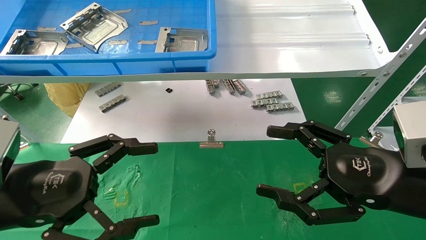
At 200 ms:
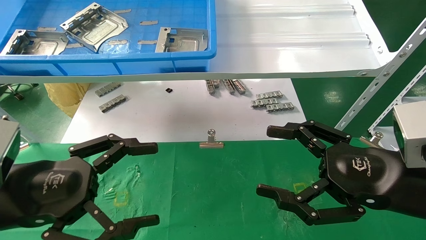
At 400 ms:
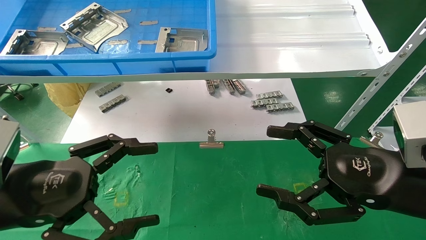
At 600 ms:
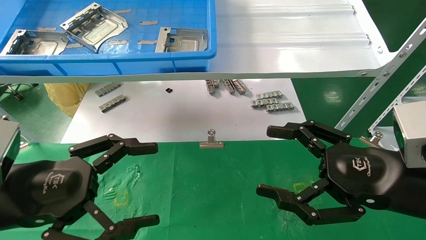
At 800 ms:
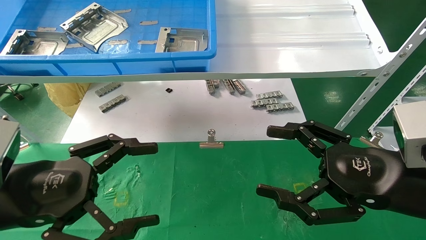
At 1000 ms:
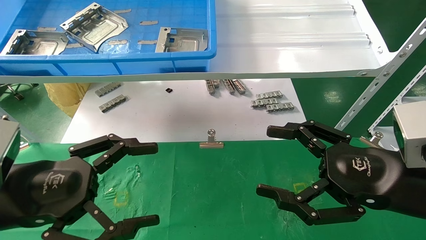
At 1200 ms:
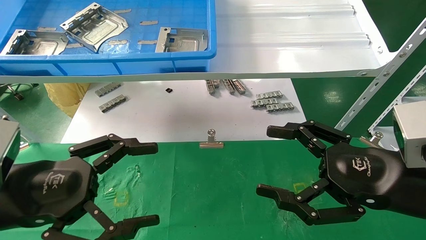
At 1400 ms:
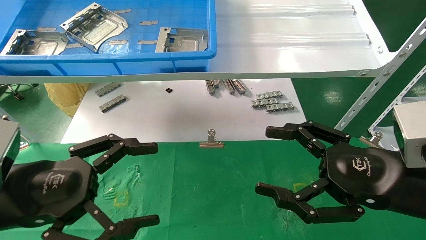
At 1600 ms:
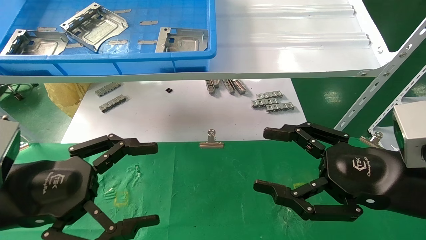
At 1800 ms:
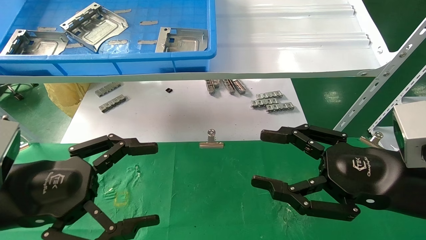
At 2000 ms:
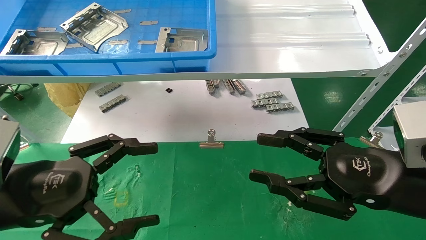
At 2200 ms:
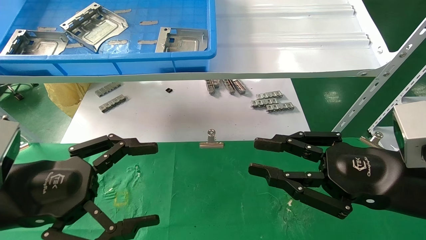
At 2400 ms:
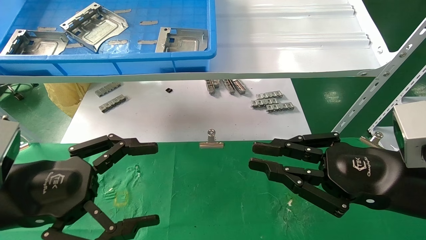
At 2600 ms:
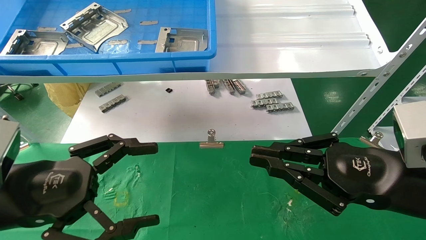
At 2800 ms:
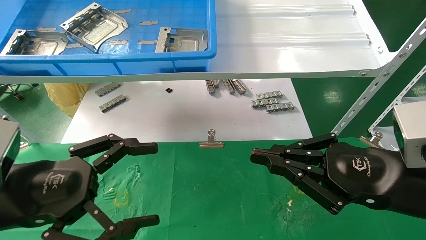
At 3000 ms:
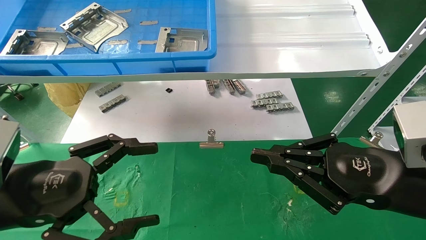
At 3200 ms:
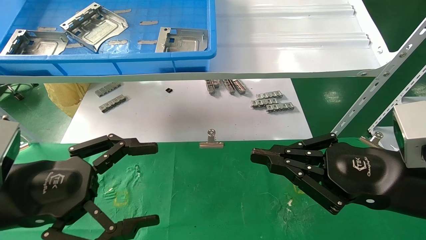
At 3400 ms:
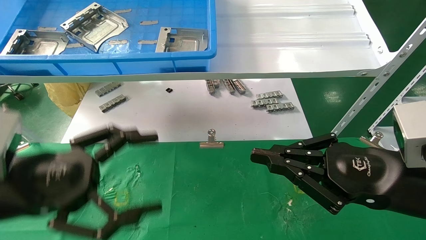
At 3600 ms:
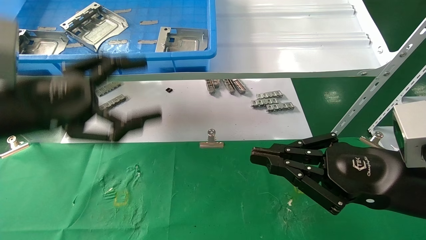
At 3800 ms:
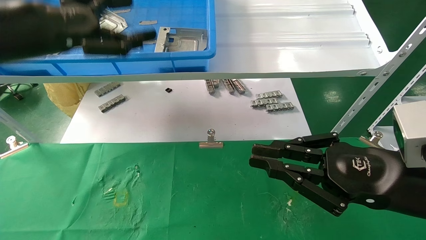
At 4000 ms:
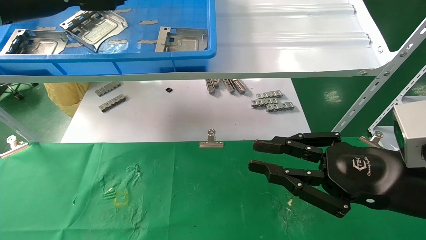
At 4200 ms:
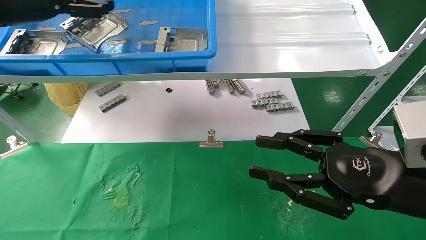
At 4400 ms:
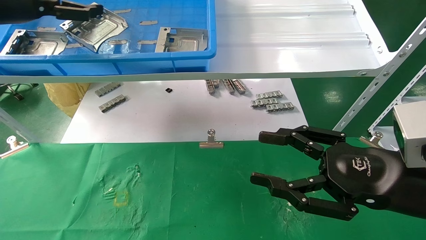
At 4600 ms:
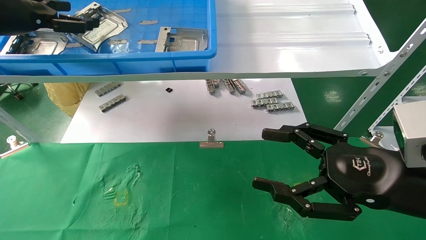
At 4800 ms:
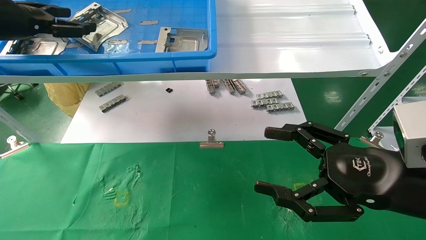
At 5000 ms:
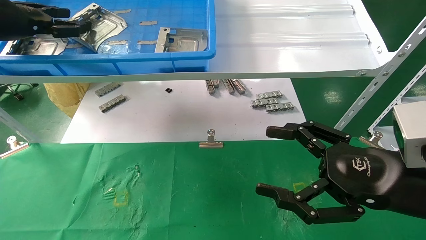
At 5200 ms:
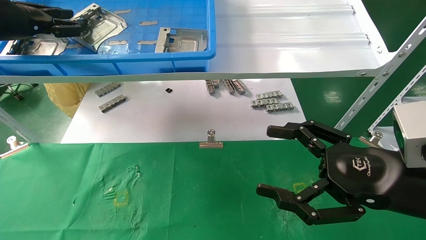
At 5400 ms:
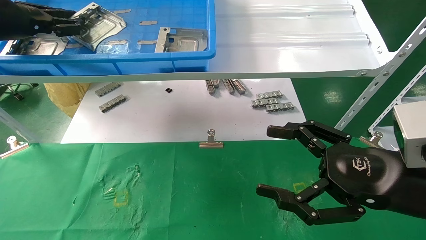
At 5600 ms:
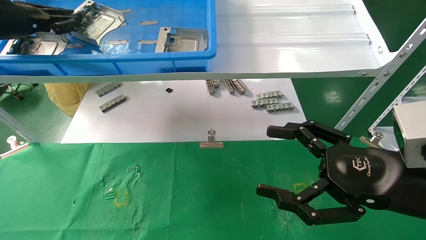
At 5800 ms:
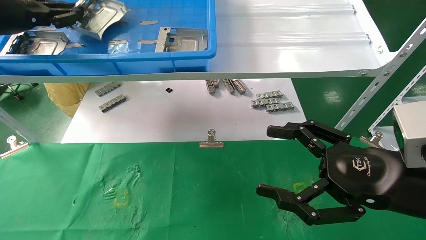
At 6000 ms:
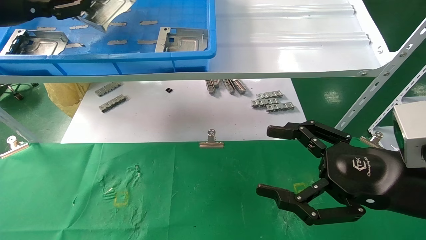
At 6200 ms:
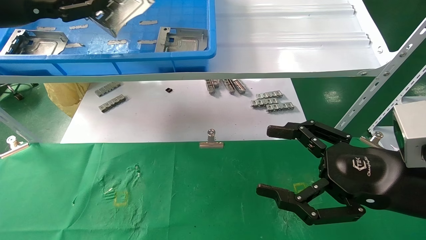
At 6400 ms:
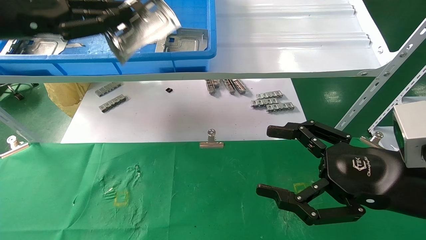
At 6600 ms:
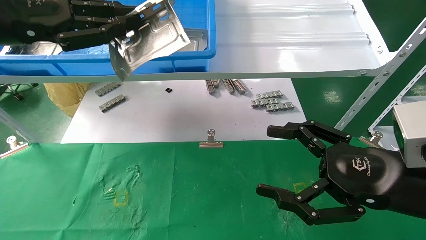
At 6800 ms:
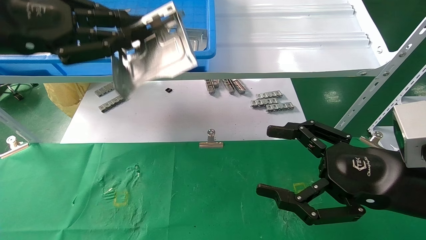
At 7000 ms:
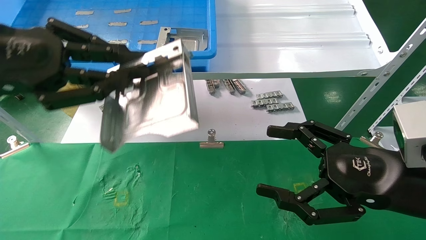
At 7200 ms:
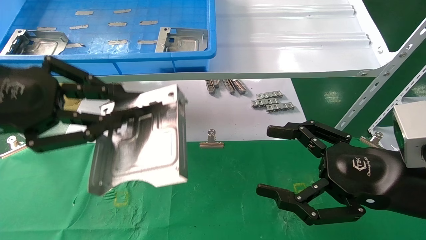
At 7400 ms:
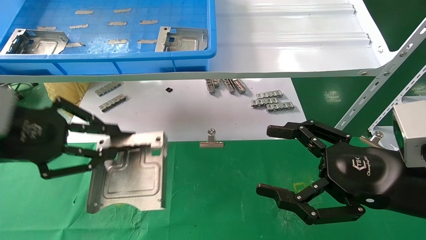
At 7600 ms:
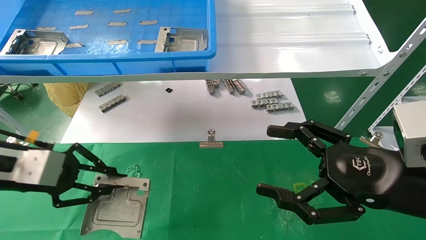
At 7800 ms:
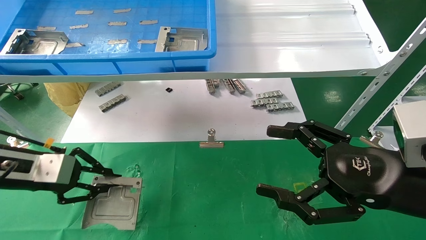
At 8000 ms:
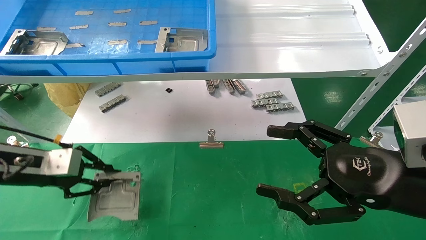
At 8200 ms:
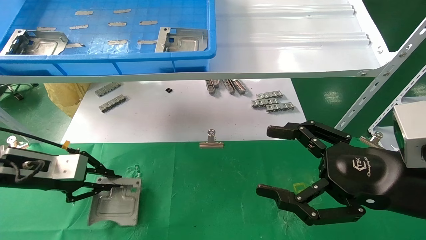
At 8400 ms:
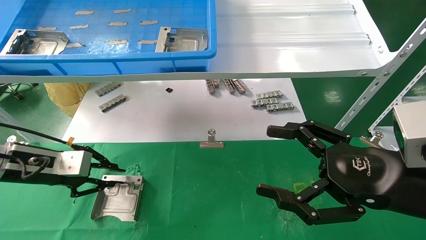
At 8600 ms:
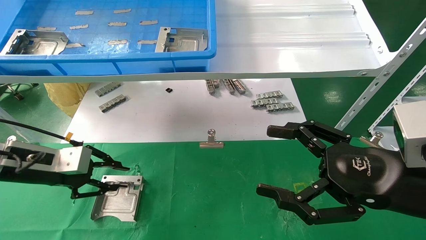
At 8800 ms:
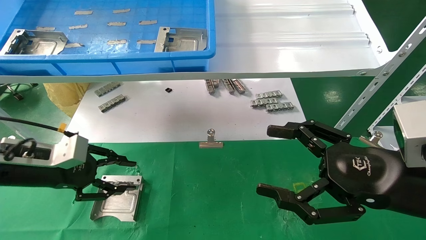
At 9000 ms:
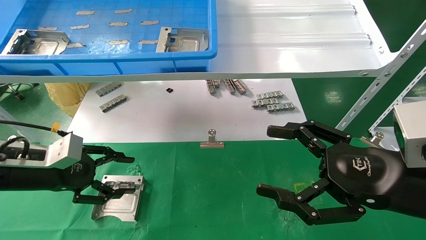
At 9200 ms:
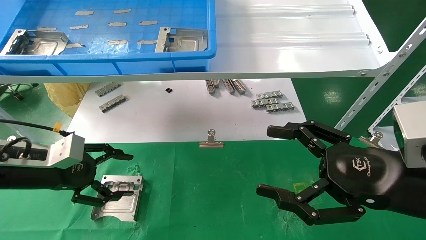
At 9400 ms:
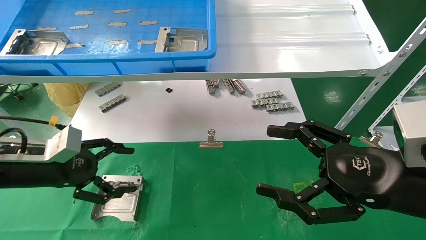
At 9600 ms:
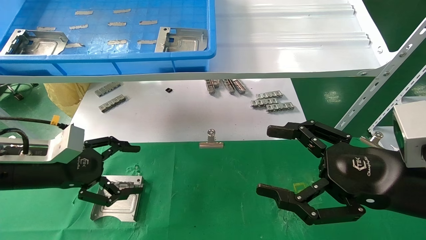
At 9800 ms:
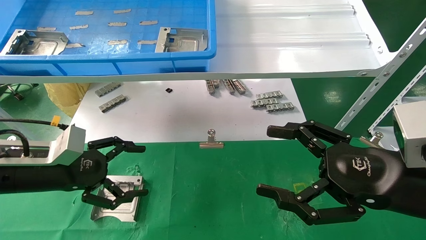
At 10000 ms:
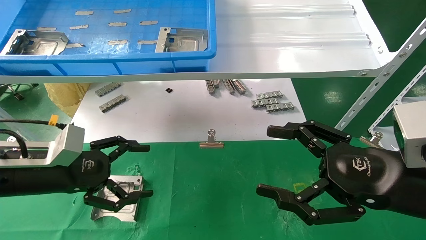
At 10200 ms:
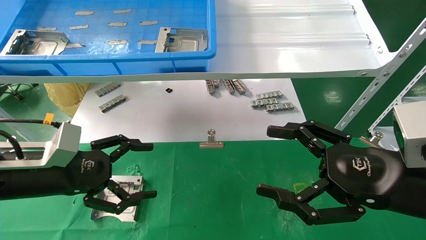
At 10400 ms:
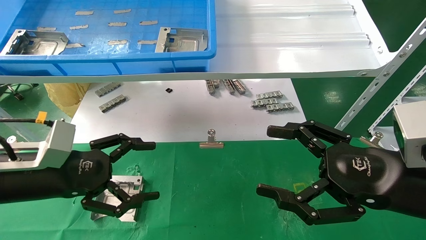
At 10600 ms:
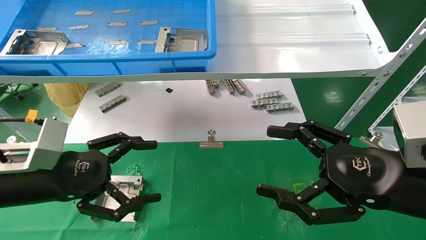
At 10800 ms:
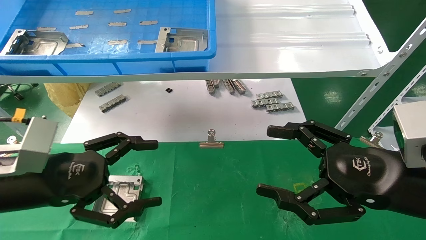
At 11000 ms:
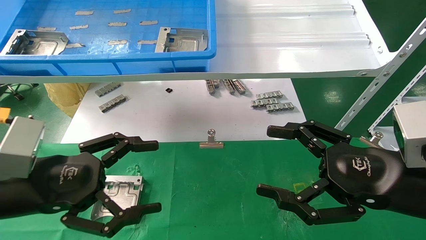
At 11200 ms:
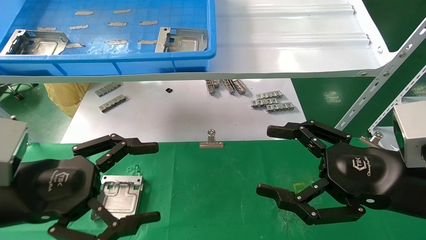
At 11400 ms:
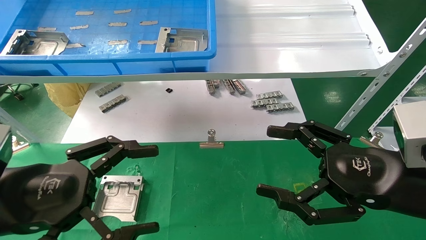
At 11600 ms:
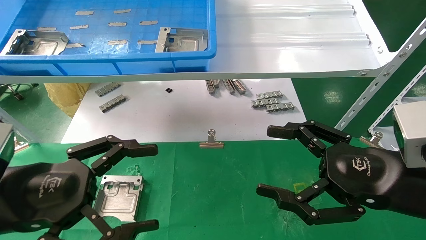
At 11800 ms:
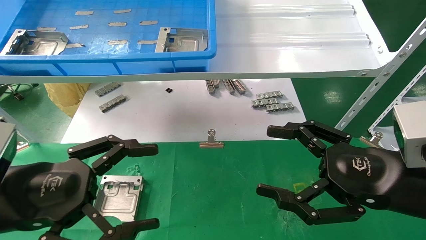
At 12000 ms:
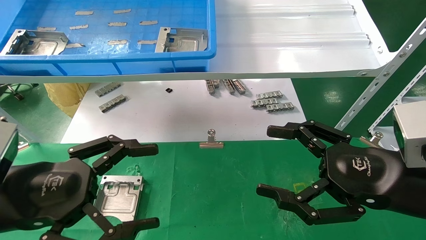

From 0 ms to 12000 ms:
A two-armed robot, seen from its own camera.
Task of the whole recording: use the mechanical arm to pick up the parts and place them on the table.
Step, from 3800 ms to 5600 ms: Pick up the hard drive bracket from the feeding area.
Step, from 5800 ms to 8400 ms: Place the hard drive bracket into the box.
From 0 ms to 1600 ms: Both grippers stay put.
From 1600 ms to 3000 ms: The right gripper closes up.
From 3000 ms to 4400 ms: The right gripper opens; the left gripper travels upward, forward and to the left by approximately 30 cm.
From 4400 ms to 6000 ms: The left gripper closes. The right gripper opens its fingers.
From 6000 ms to 7600 ms: The left gripper shifts approximately 20 cm downward and backward.
From 7600 ms to 9000 ms: The left gripper is displaced downward by about 5 cm, and opens its fingers.
From 9000 ms to 10400 ms: The left gripper moves to the right and backward, roughly 10 cm, and opens its fingers.
From 10400 ms to 12000 ms: The left gripper shifts about 10 cm backward.

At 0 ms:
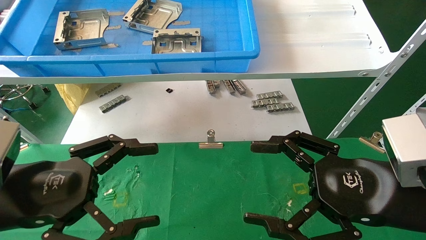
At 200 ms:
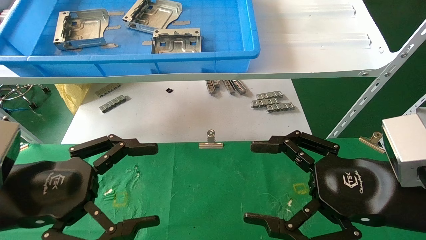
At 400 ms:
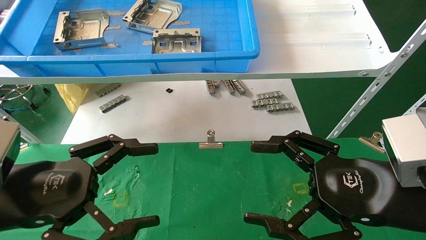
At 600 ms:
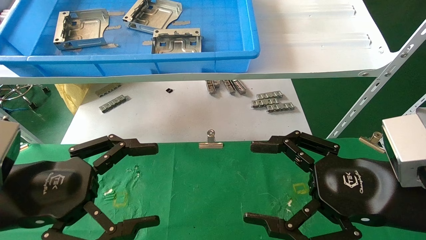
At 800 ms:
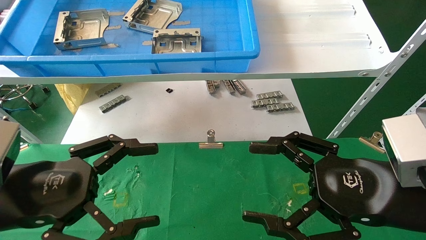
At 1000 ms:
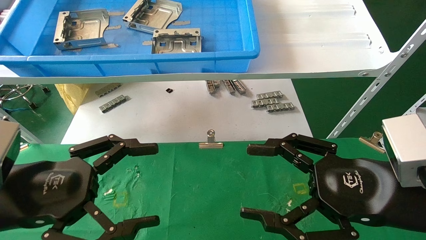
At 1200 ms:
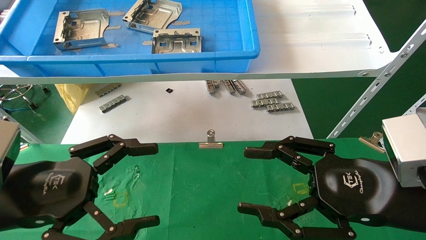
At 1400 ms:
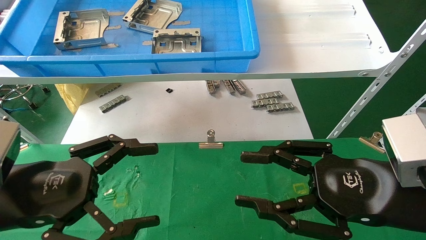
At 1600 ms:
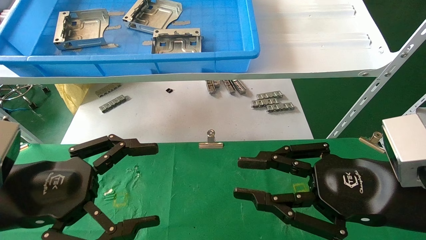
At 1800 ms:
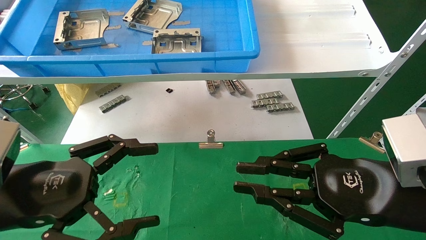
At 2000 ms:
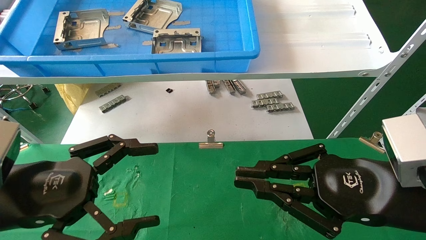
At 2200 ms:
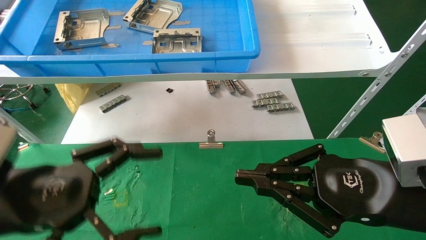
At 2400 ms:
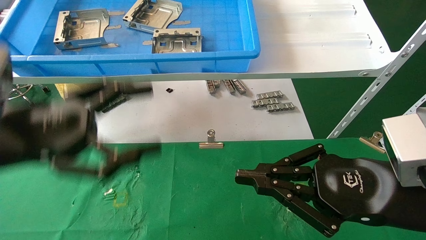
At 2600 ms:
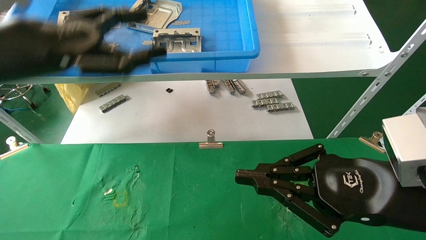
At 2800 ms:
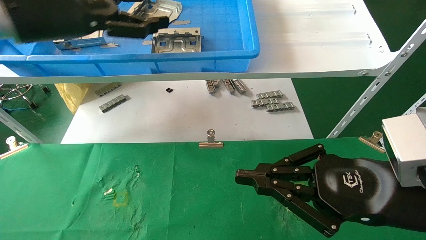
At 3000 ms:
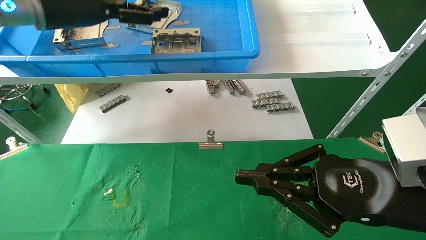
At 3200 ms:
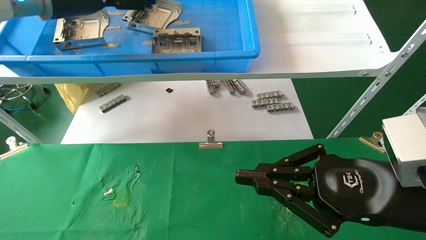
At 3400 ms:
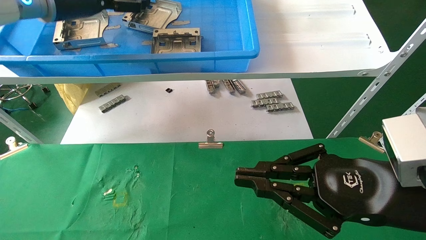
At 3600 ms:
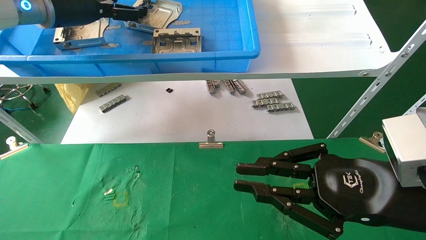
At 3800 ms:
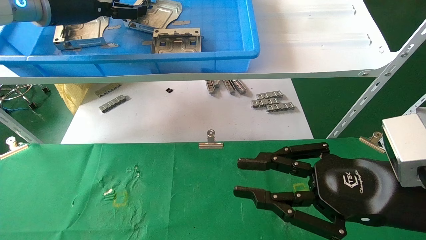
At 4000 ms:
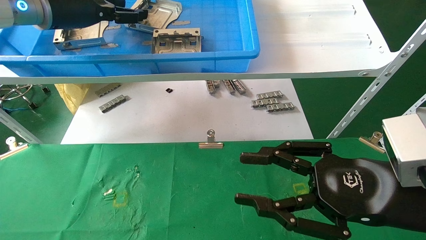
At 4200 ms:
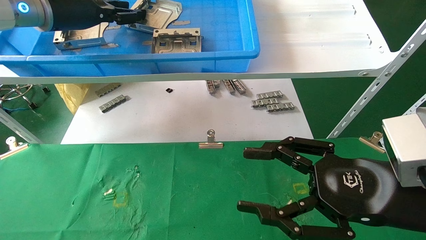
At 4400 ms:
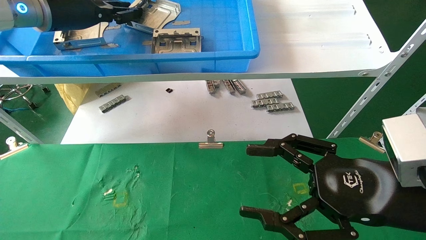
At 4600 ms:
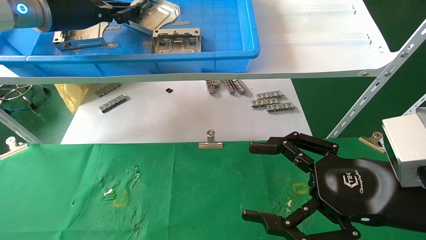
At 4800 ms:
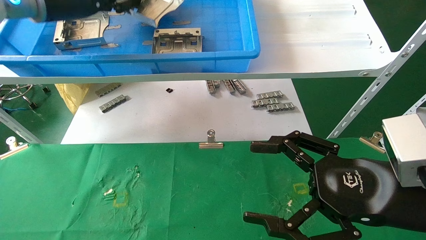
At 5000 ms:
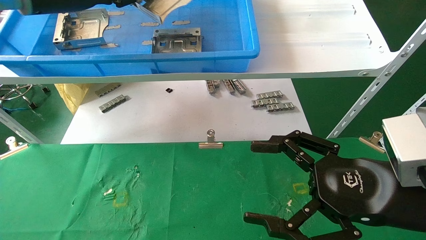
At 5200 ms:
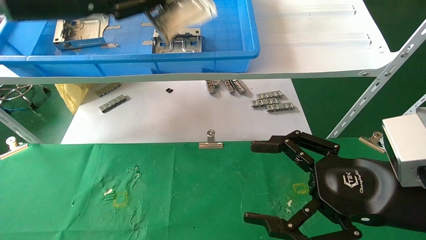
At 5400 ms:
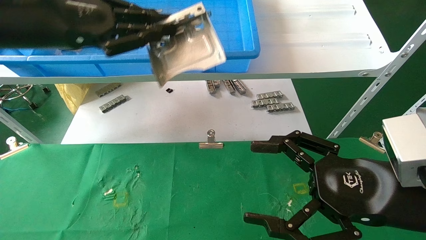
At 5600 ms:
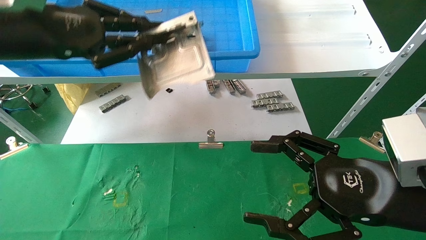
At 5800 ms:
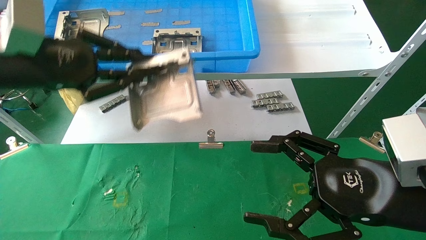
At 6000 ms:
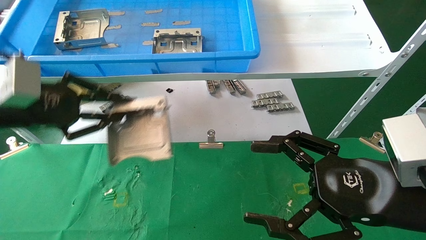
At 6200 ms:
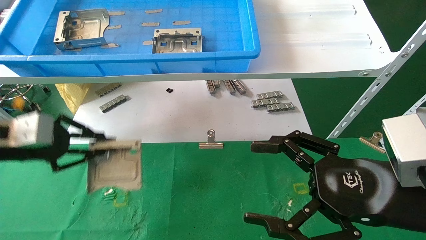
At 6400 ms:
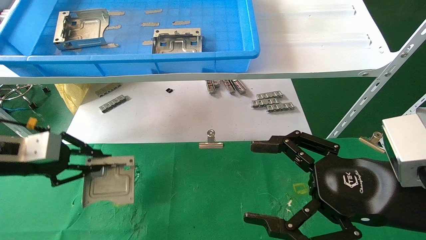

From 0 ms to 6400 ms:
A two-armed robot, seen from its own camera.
Task of the whole recording: use the mechanical arm to pick up the parts and place them on the table.
Step, from 2400 ms to 4600 ms: Pick up the hard drive bracket from the feeding area.
From 0 ms to 1600 ms: The right gripper closes up.
From 1600 ms to 3200 ms: The left gripper shifts roughly 30 cm upward and forward. The right gripper closes its fingers.
From 3200 ms to 4800 ms: The right gripper opens. The left gripper closes.
From 4800 ms to 6400 ms: The left gripper travels downward and to the left by roughly 25 cm.
